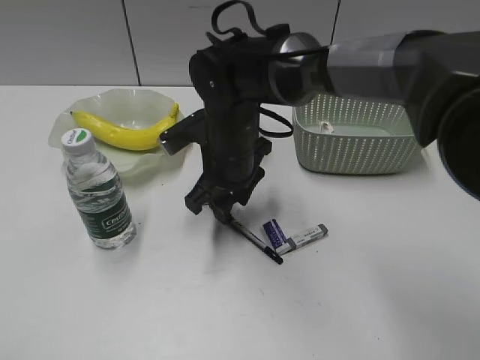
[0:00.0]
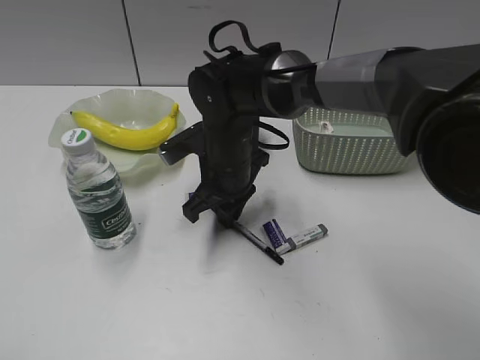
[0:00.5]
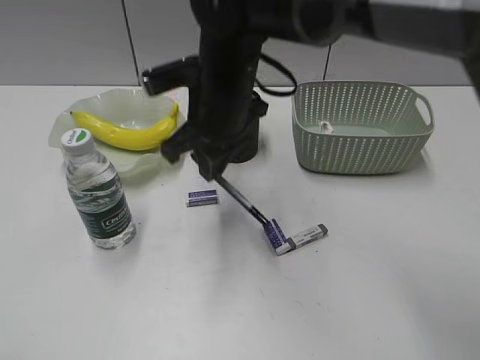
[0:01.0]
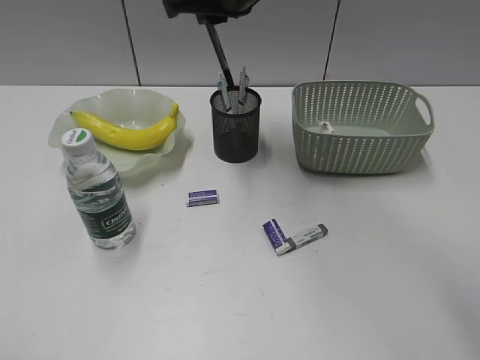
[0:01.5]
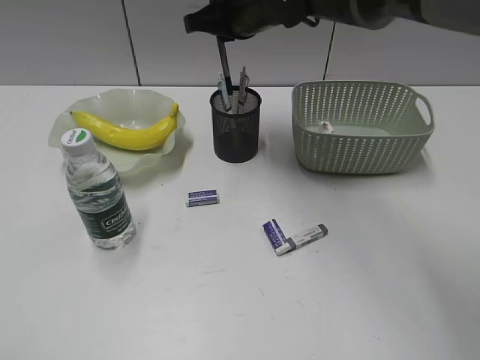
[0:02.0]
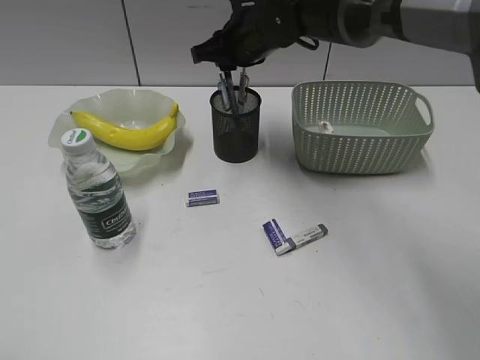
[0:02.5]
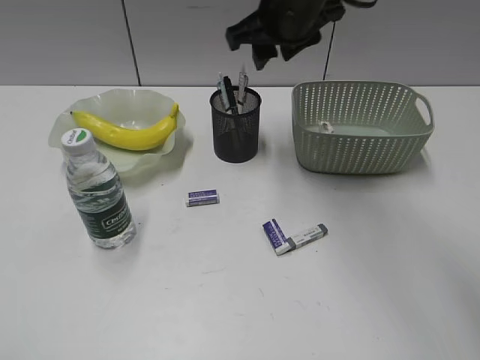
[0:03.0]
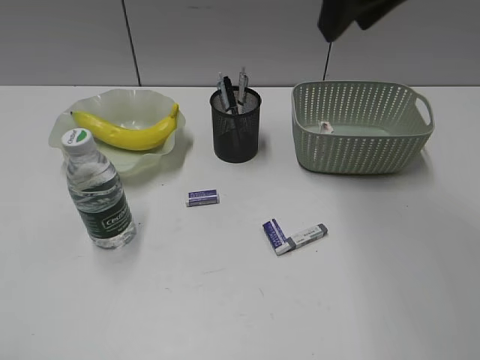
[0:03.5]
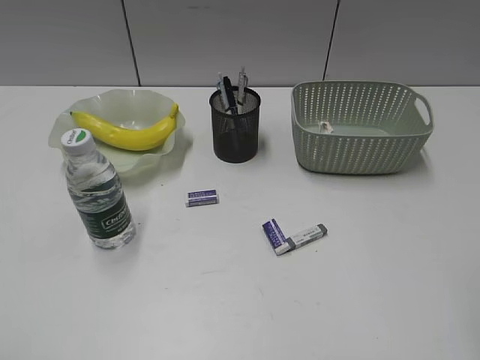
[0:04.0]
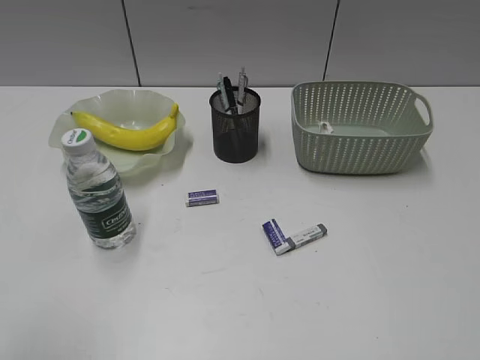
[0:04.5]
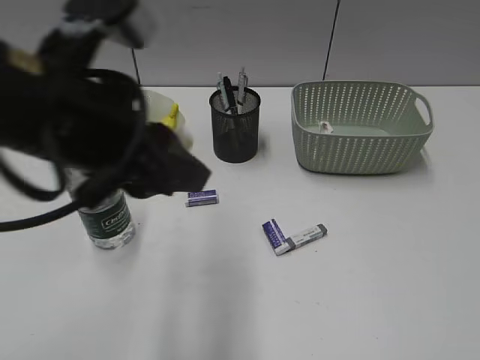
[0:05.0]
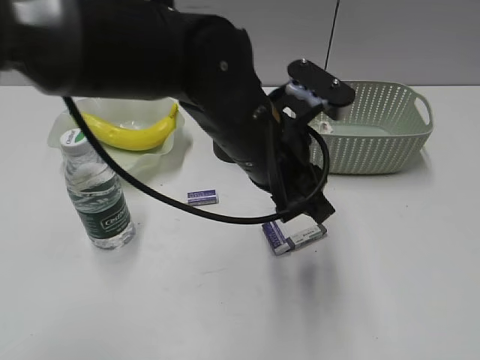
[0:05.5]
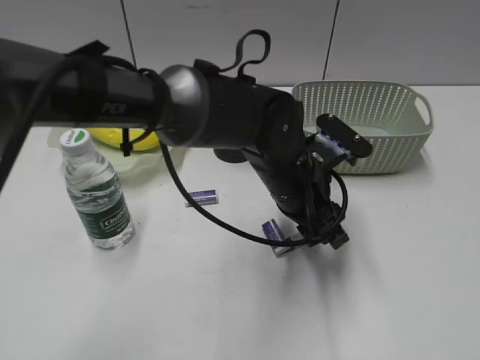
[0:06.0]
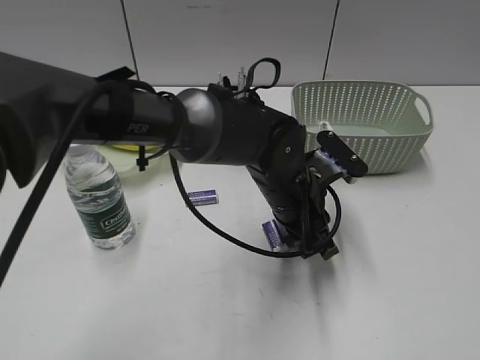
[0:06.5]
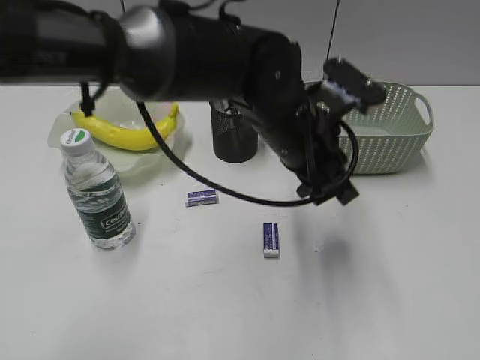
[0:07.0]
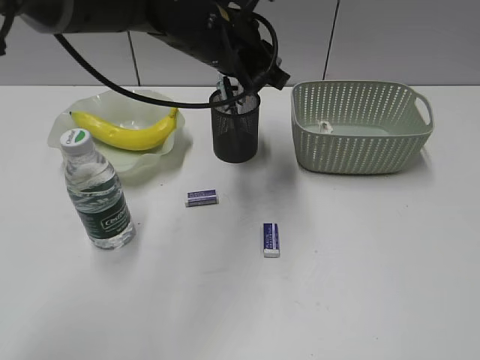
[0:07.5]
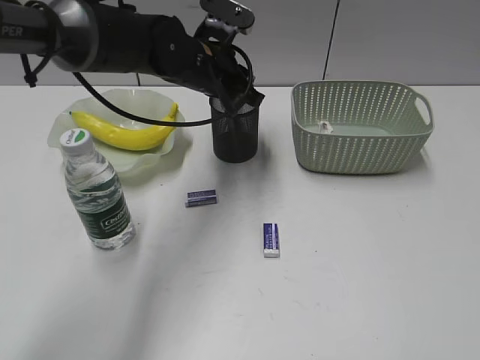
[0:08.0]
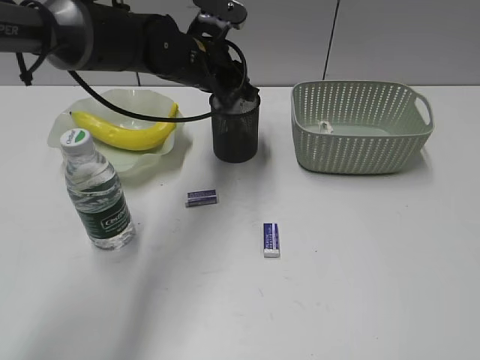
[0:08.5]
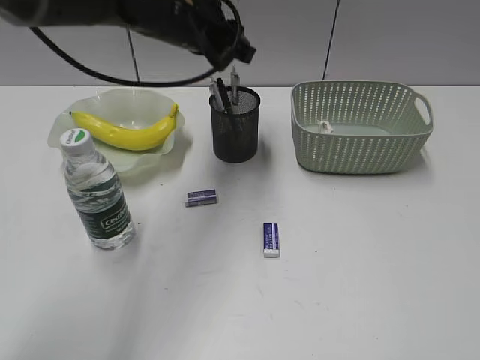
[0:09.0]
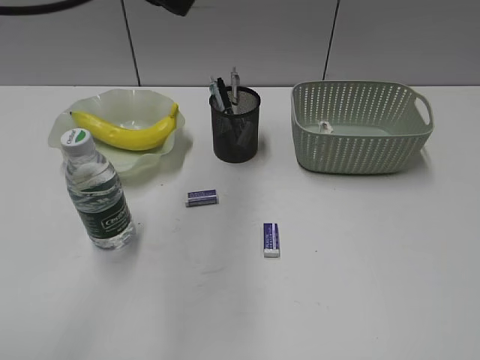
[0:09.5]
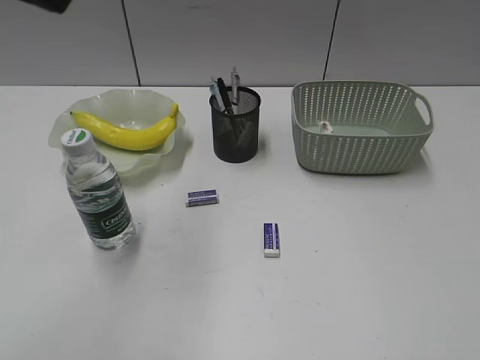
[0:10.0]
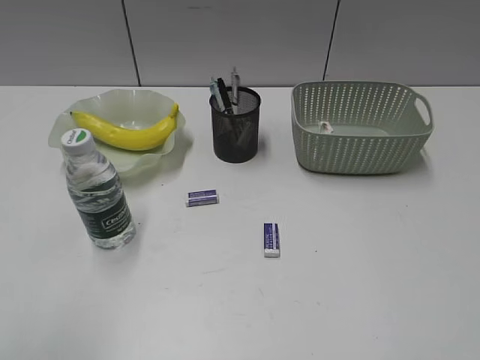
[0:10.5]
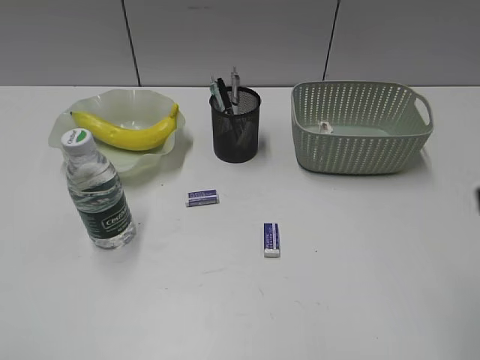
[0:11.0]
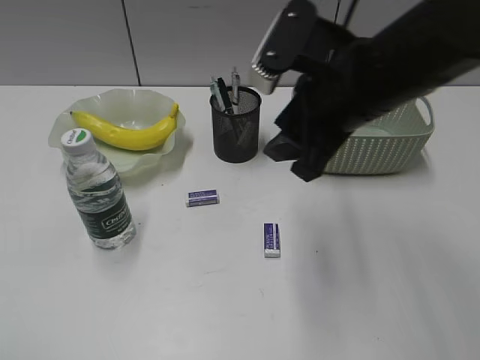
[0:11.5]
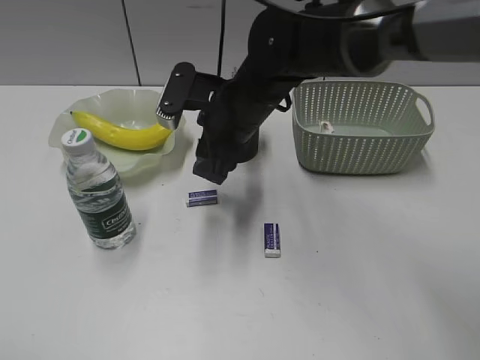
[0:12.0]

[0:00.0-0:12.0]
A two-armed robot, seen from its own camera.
Step, 0:01.0 to 0:02.5: Place the black pen in pen holder with right gripper.
Step, 0:03.0 to 0:06.5: Grasp the eraser with left gripper.
Step, 0:07.0 to 0:08.5: Place the eraser in pen holder with left gripper.
0:00.0 to 0:02.0: The right gripper moves upward and forward, some 15 cm, and closes.
0:02.0 to 0:04.0: The right gripper travels backward and to the right by approximately 40 cm, and opens up.
0:04.0 to 0:06.0: The right gripper moves backward, to the right and downward, about 15 cm; the left gripper is displaced to the right and forward by some 50 cm.
0:06.0 to 0:08.0: The left gripper shifts approximately 20 cm forward, to the left and upward, and closes its fingers.
0:08.0 to 0:10.0: The left gripper moves upward, backward and to the left, roughly 35 cm.
0:10.0 to 0:12.0: The right gripper shifts roughly 50 cm forward and to the left. The left gripper shifts roughly 30 cm backward, downward and to the left.

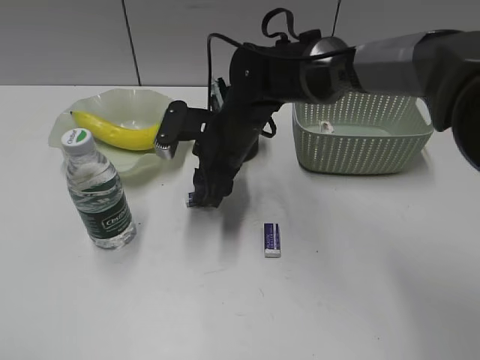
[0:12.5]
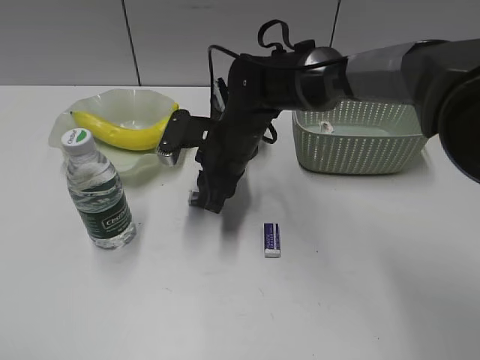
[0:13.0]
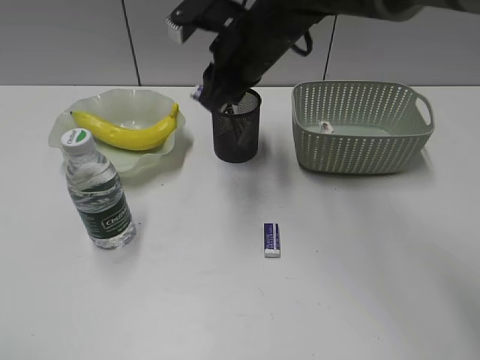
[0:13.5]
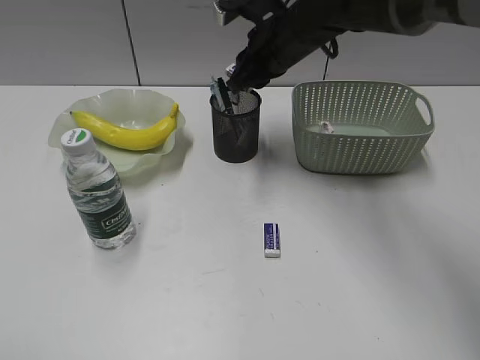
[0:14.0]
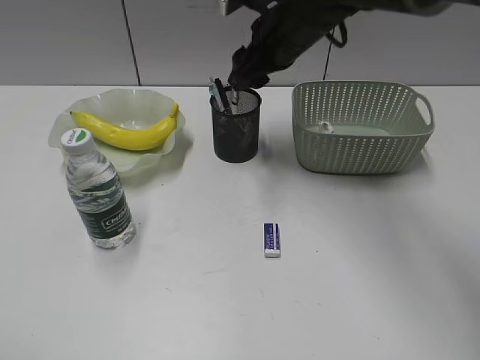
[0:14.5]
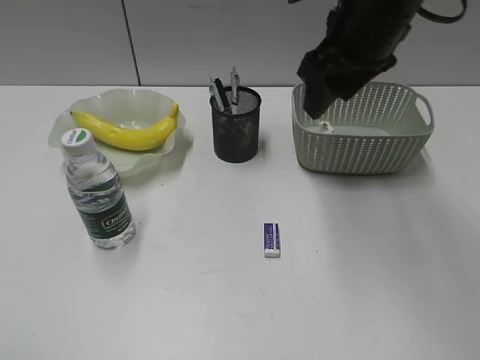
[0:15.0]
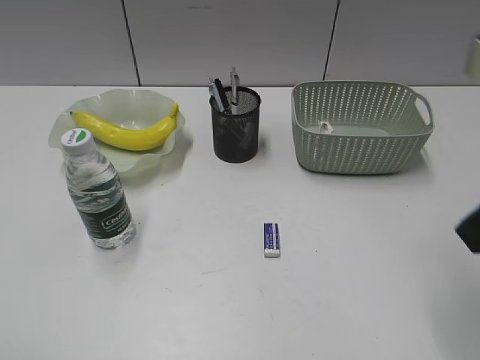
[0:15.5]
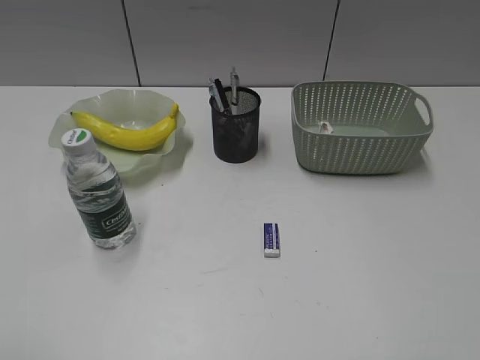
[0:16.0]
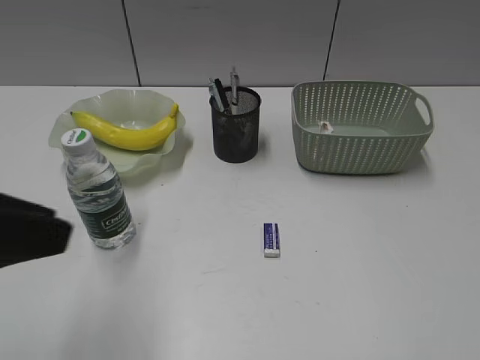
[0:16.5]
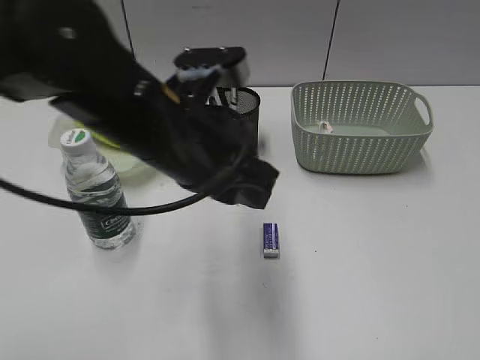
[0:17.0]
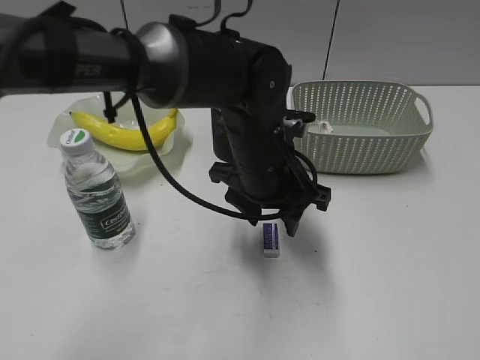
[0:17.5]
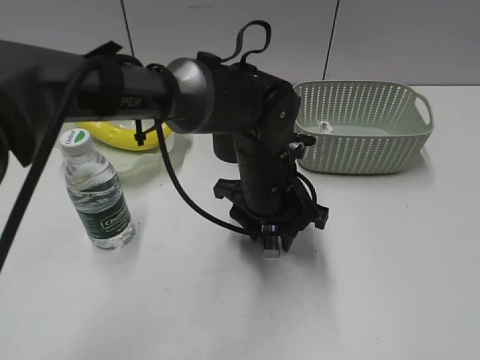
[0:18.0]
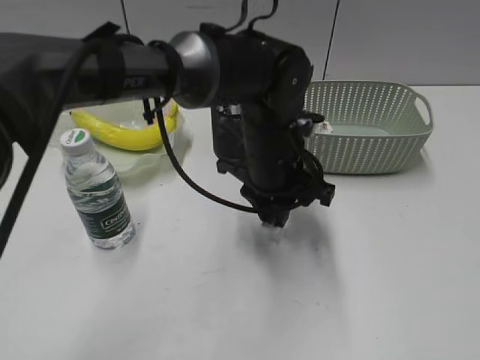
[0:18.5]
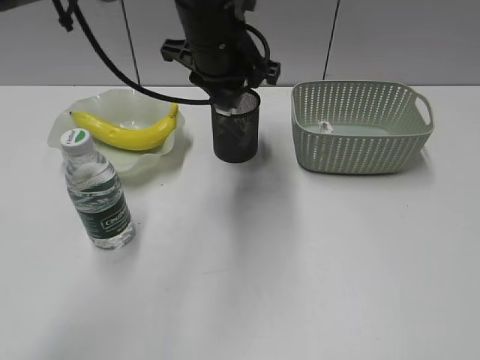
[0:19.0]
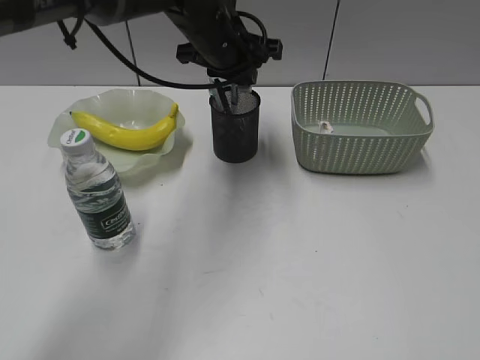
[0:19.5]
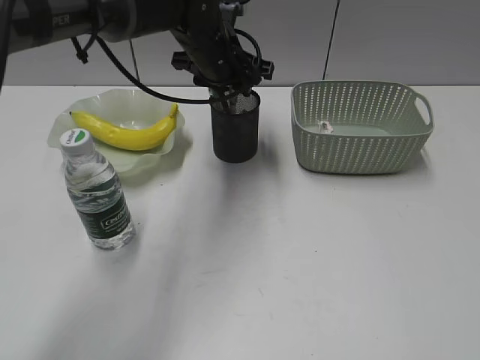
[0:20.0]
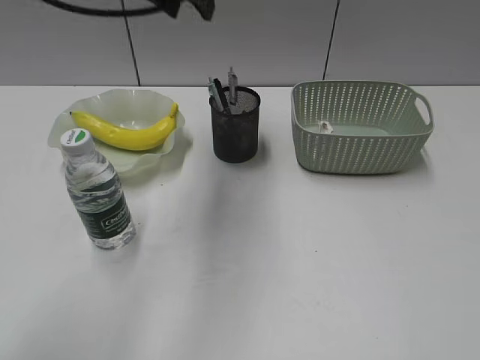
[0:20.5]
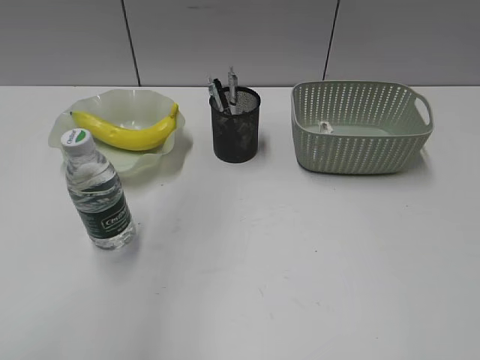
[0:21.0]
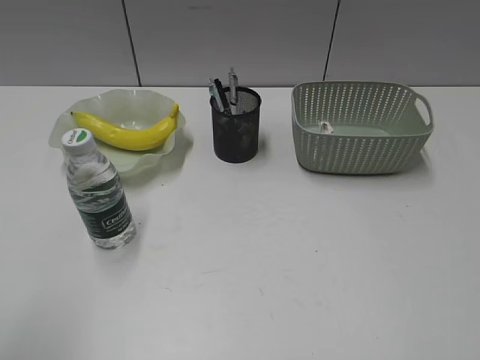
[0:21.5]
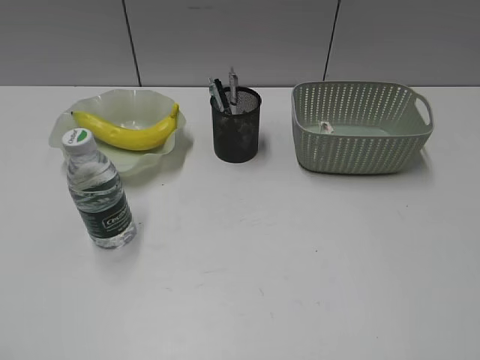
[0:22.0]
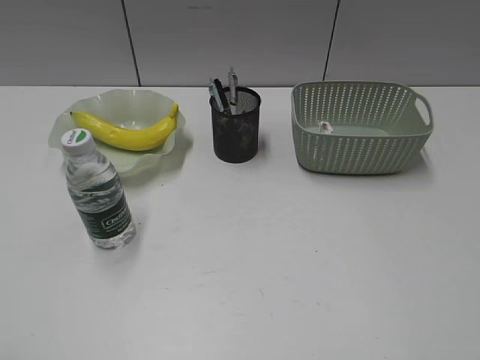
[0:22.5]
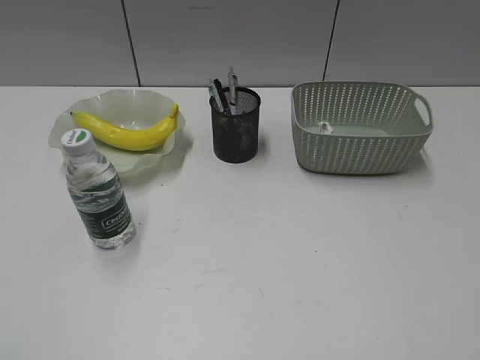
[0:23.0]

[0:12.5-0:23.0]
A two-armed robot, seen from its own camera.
Step, 0:13.0 to 0:14.0: Place the eraser in pen holder with right gripper.
Step, 0:14.5 to 0:18.0: Grasp the eraser with left gripper.
Step, 0:18.5 to 0:20.0: Place the eraser in pen holder with left gripper.
0:12.5 to 0:14.5: The right gripper goes approximately 15 cm upward, to the right and forward, and closes, then opens again.
0:14.5 to 0:16.5: The left gripper travels forward and to the right by approximately 15 cm. Meanwhile the right gripper shifts about 50 cm backward and to the right.
0:16.5 to 0:19.0: The left gripper heads forward and to the right, covering approximately 35 cm, and opens and closes again.
0:19.0 to 0:21.0: The left gripper shifts roughly 30 cm upward, to the left and backward.
0:21.0 to 0:23.0: The left gripper is displaced backward, downward and to the left by some 35 cm.

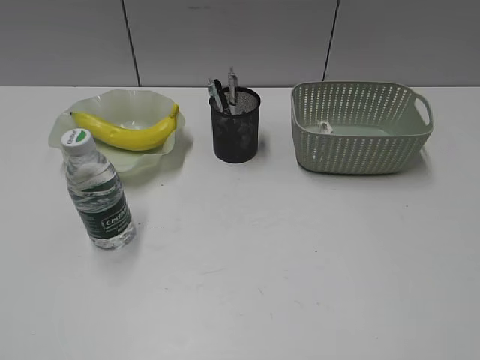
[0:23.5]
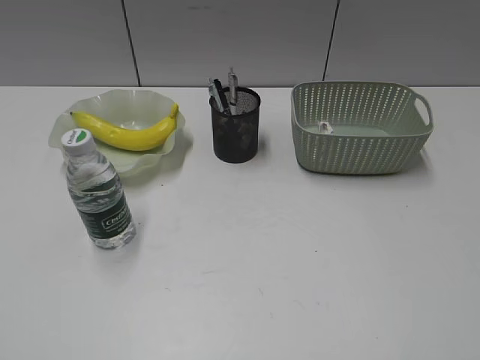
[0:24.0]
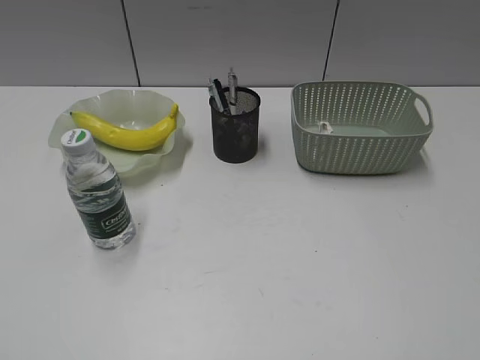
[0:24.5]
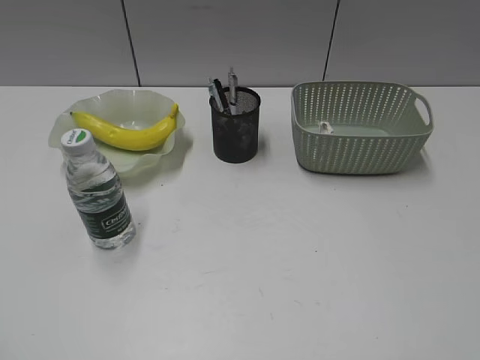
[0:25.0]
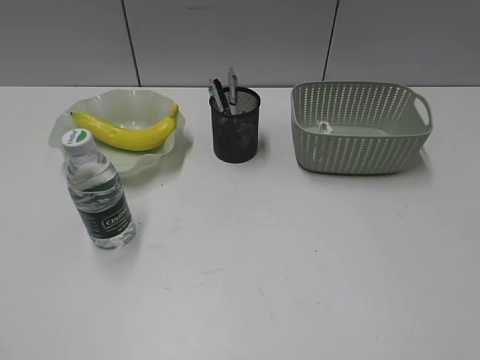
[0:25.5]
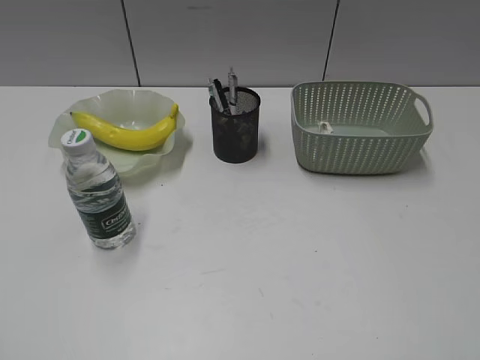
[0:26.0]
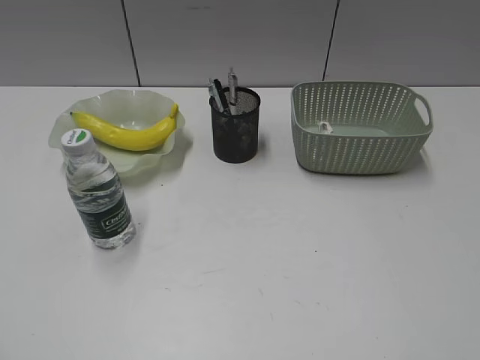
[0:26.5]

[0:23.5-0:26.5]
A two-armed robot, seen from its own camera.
0:25.0 to 0:26.5: Neither gripper changes place.
